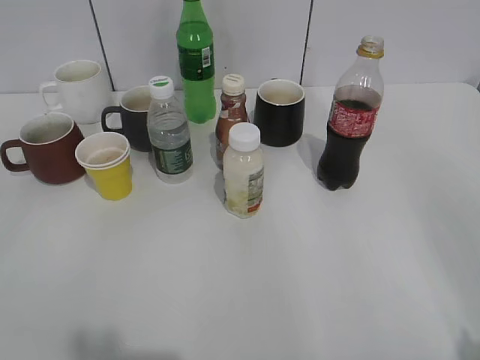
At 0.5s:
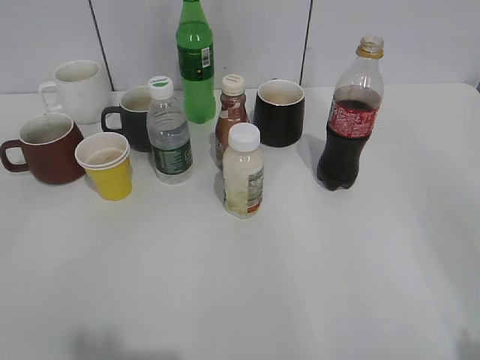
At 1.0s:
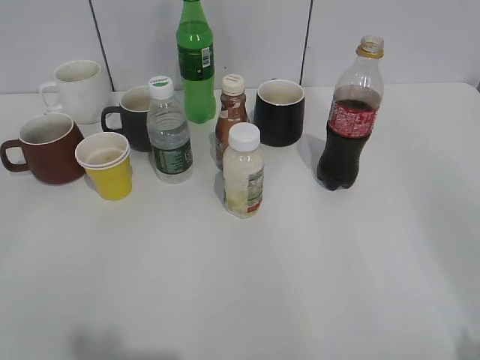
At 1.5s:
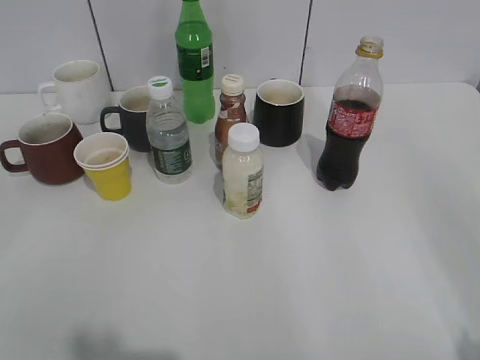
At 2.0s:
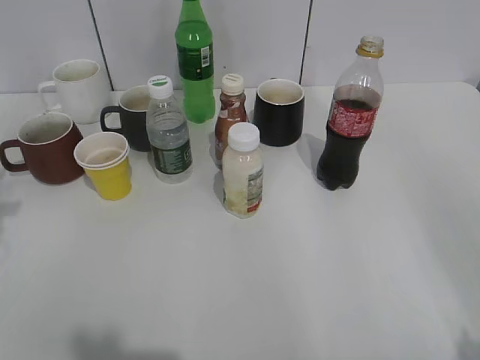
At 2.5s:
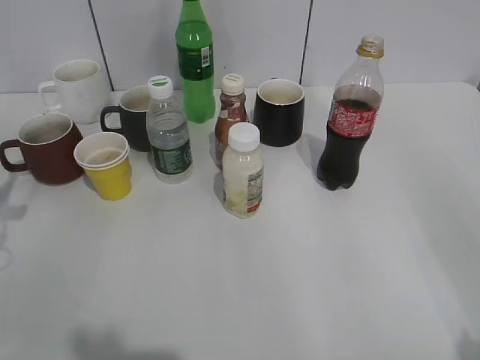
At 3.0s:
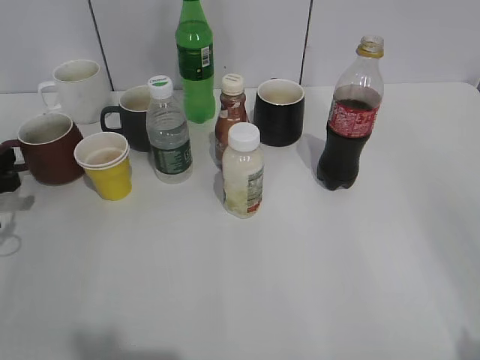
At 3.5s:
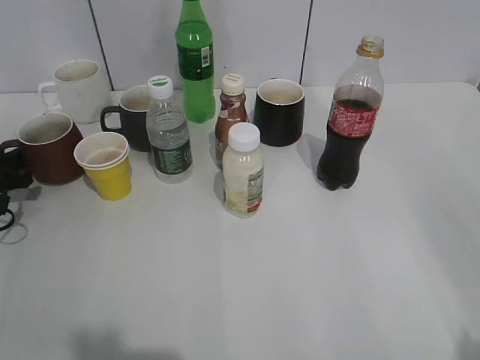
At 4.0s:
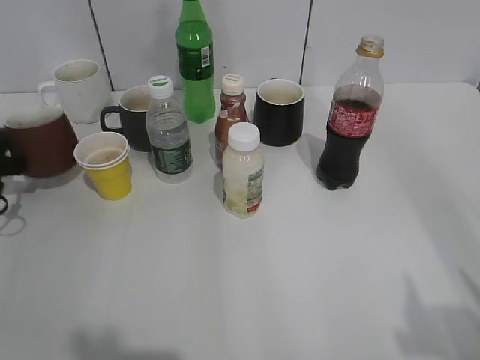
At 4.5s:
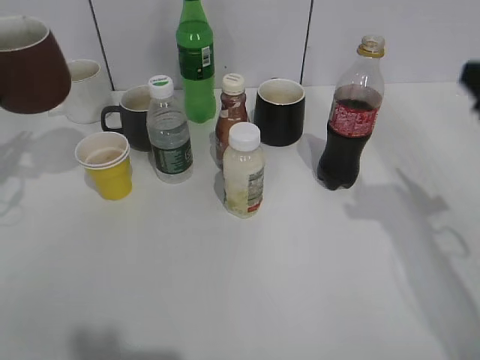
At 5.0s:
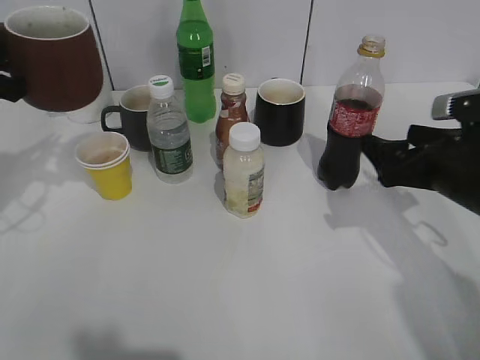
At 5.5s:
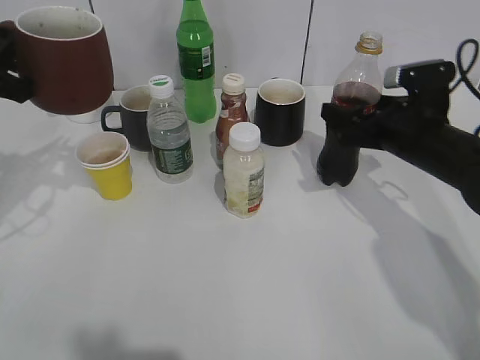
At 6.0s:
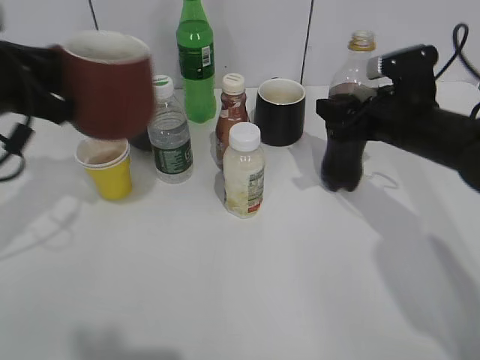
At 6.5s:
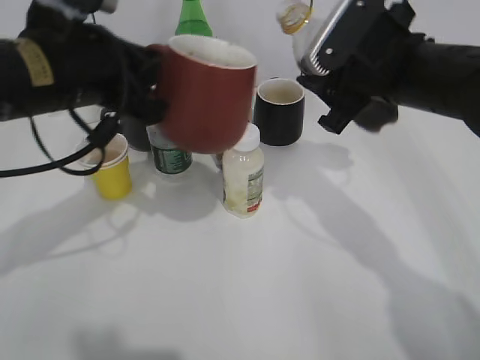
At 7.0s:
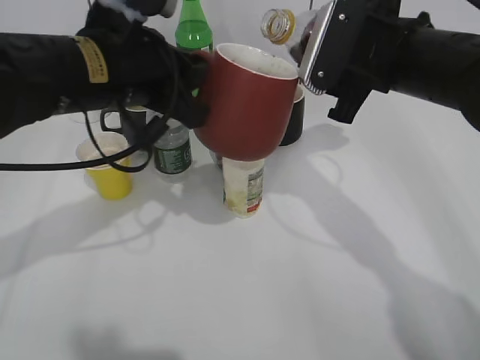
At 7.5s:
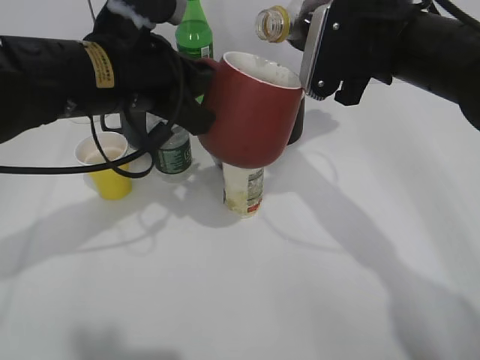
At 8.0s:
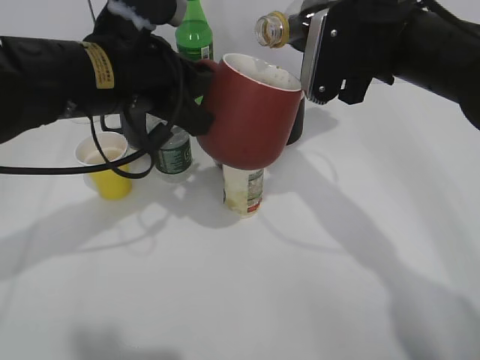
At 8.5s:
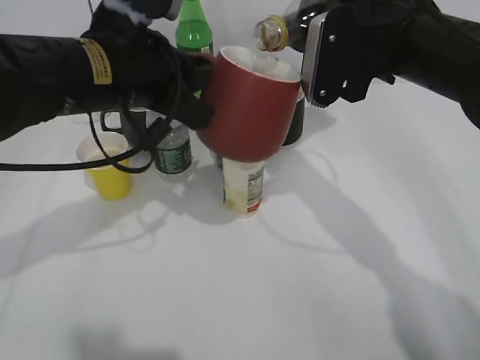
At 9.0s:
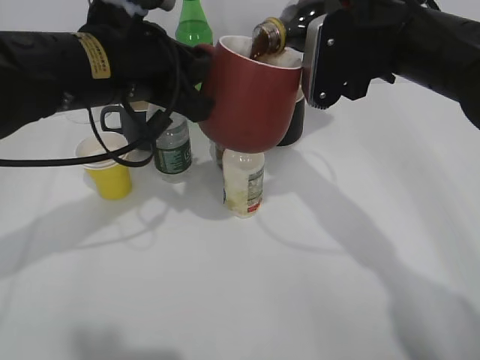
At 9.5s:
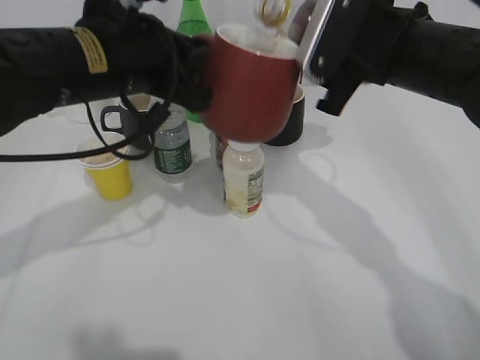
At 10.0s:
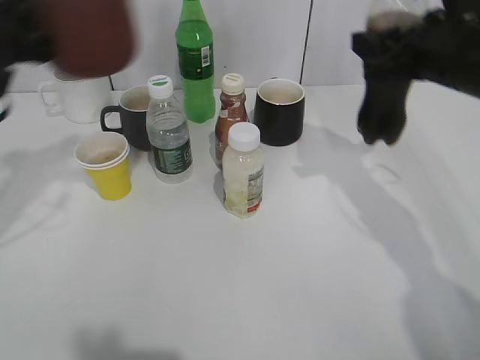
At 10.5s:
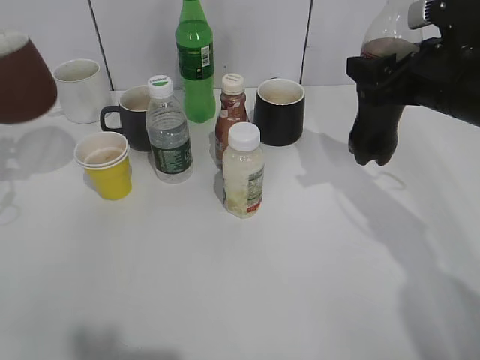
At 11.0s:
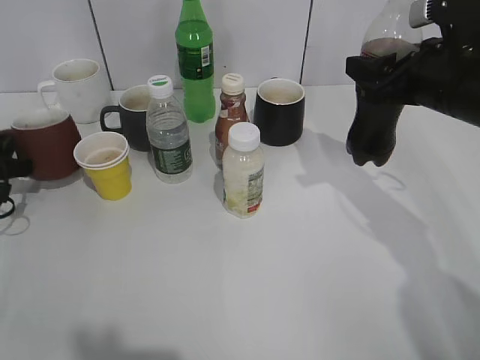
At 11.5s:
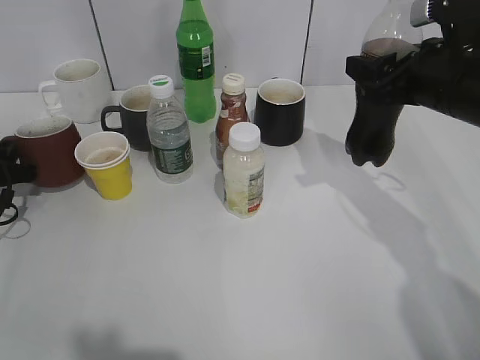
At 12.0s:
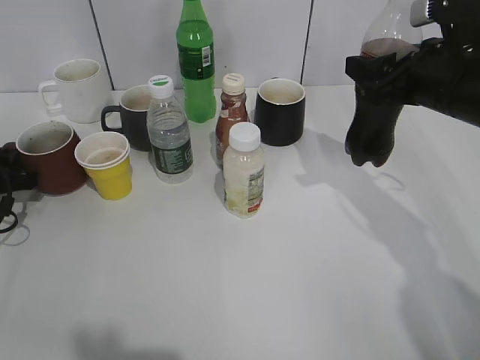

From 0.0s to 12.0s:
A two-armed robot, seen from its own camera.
Step, from 1.5s to 3.5s: Grasp the red cup with left gripper.
Step, from 4.0s to 5.5s: Grasp the bottle with cola with right gripper.
Step, from 6.0s to 9.5s: Pour the cola from bottle to cup with right gripper.
From 2.0s to 4.0s: The left gripper heads downward and forward, covering some 25 cm, and closes.
From 4.0s to 6.0s: The right gripper goes roughly 40 cm forward and downward, and closes. The left gripper is displaced upward and to the right by roughly 20 cm.
From 6.0s to 8.0s: The left gripper travels to the right by about 15 cm. Meanwhile the right gripper moves upward and to the left, approximately 15 cm.
From 8.0s to 10.0s: The right gripper heads to the right, covering about 5 cm, while the left gripper goes about 15 cm to the left.
From 10.0s to 12.0s: The left gripper travels downward and to the left by roughly 25 cm.

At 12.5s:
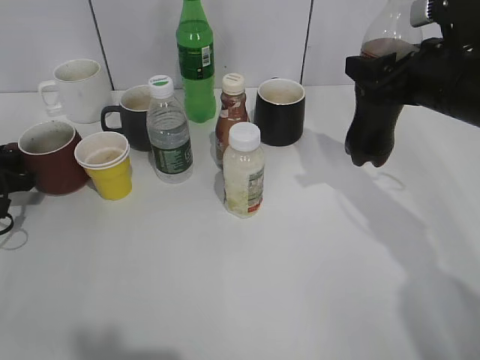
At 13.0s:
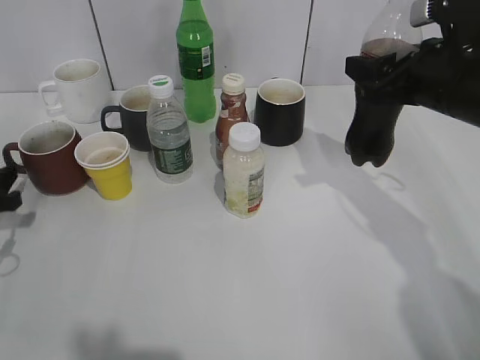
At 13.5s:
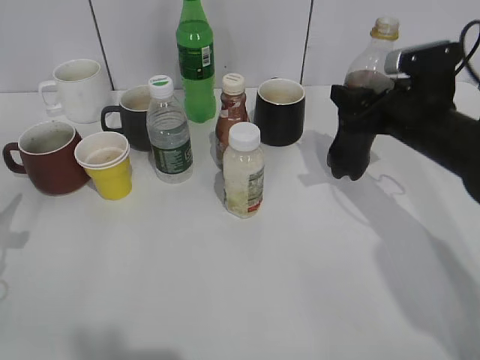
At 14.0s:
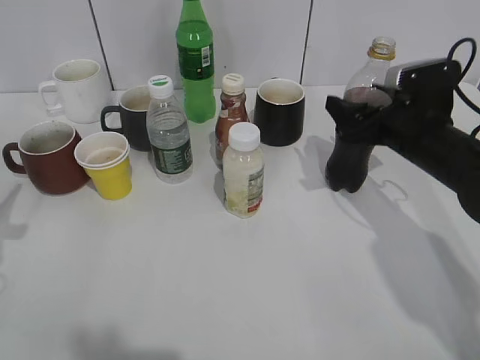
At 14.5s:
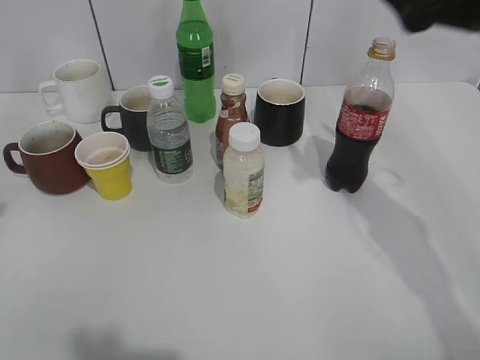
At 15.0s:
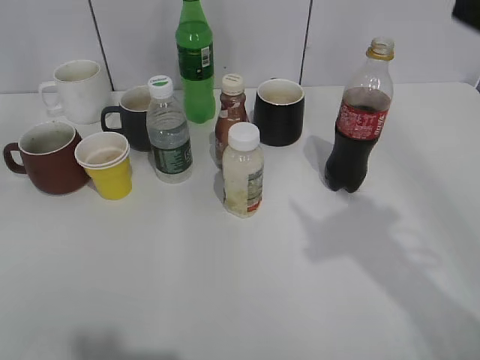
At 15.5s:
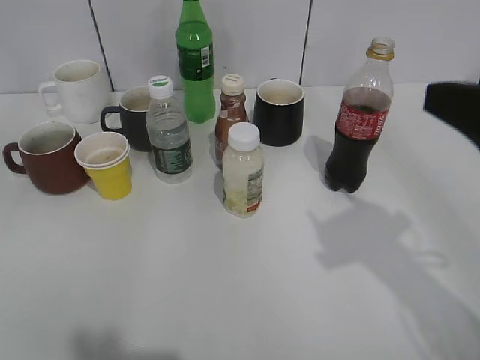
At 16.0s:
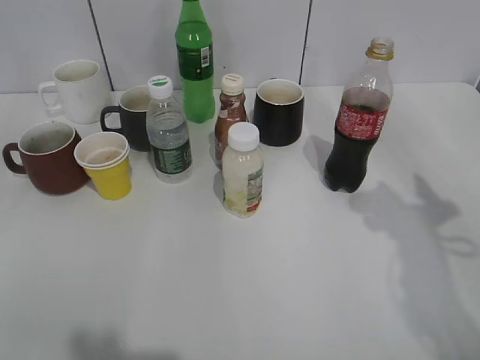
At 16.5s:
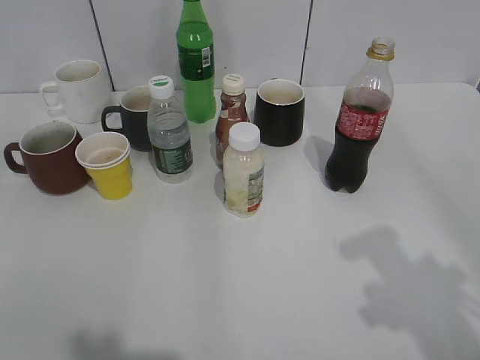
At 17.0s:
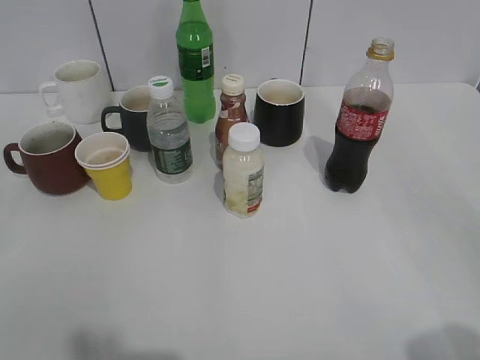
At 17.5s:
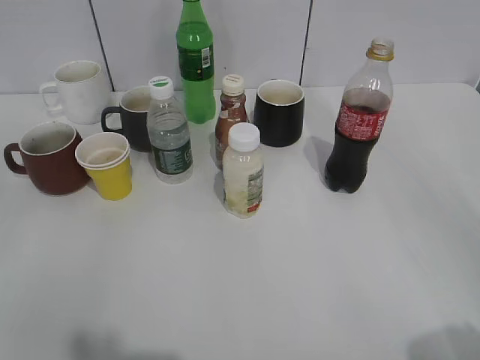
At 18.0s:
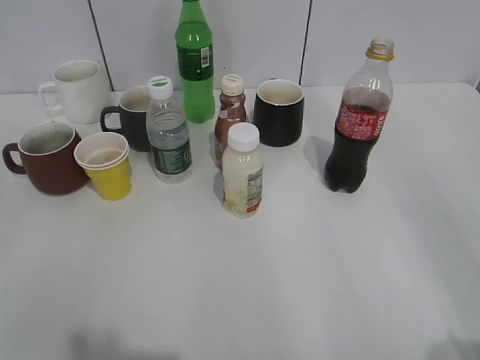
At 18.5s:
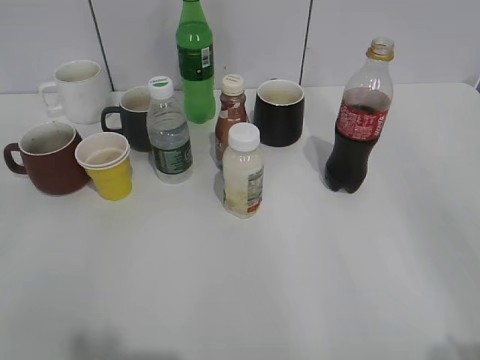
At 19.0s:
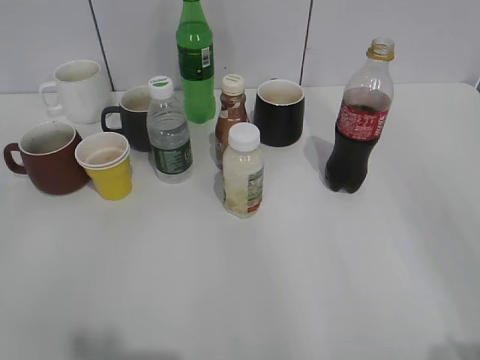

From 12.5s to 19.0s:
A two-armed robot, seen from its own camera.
From 12.5s to 14.5s: The left gripper goes some 25 cm upward and backward. The right gripper is displaced upward by approximately 10 cm, and opens its fingers.
From 14.5s to 17.0s: The right gripper goes forward and backward, roughly 30 cm each way, reversing 2 times, and closes up.

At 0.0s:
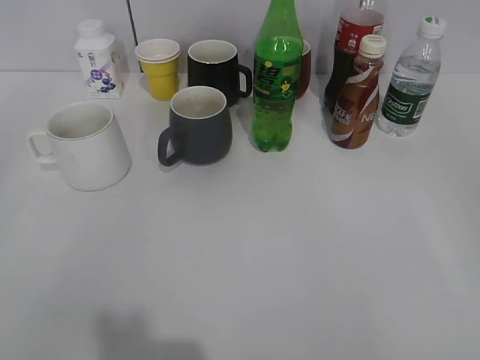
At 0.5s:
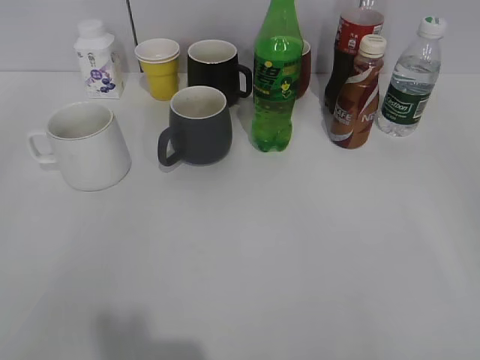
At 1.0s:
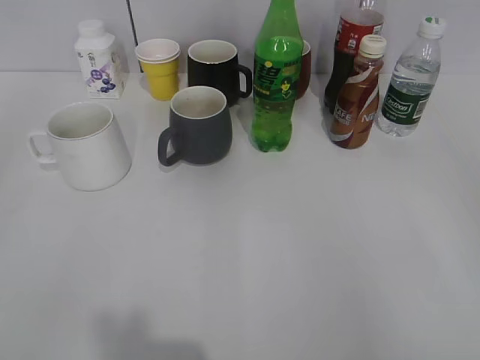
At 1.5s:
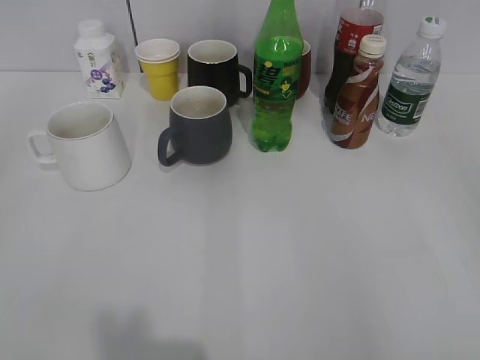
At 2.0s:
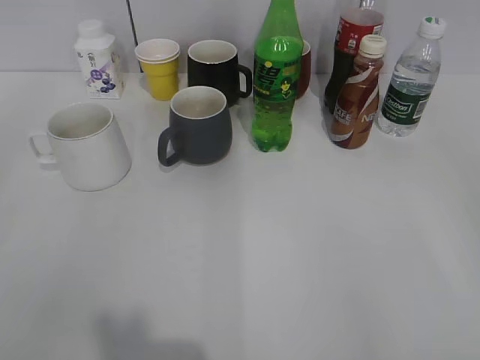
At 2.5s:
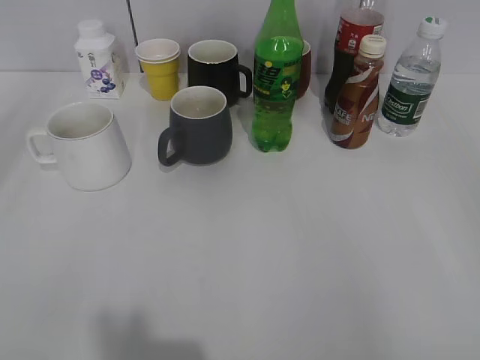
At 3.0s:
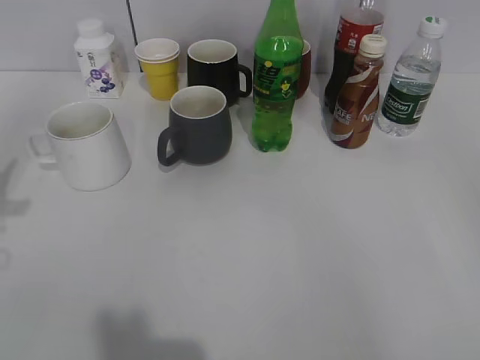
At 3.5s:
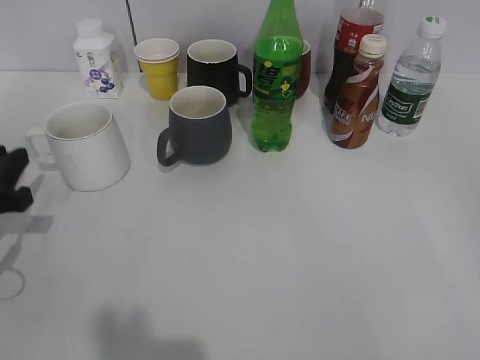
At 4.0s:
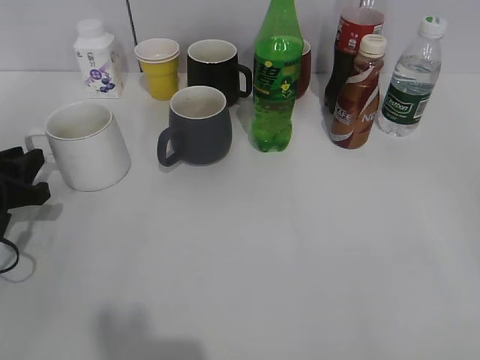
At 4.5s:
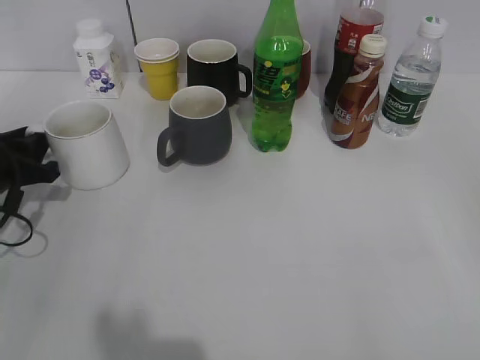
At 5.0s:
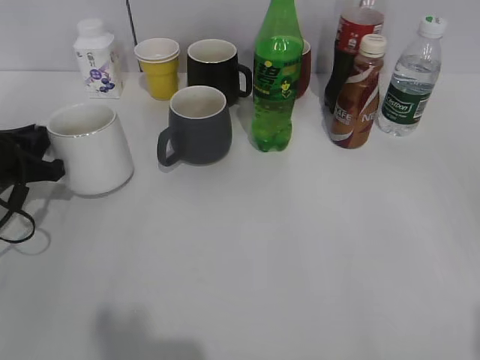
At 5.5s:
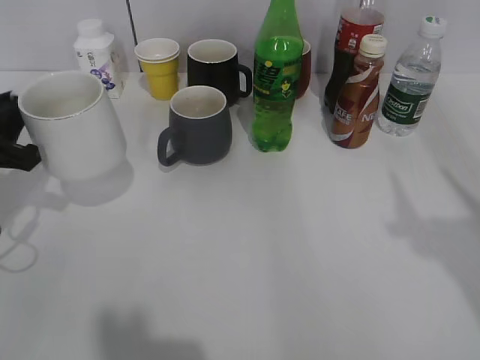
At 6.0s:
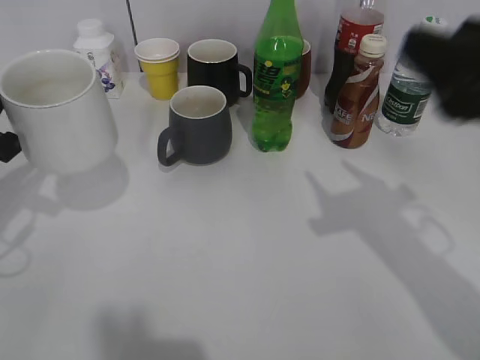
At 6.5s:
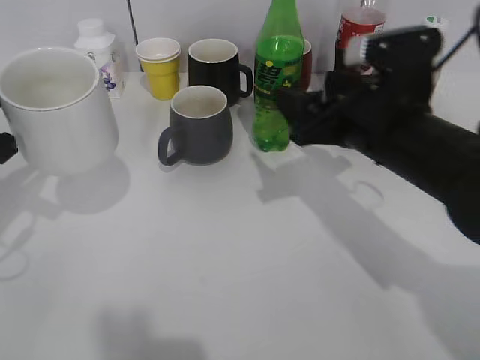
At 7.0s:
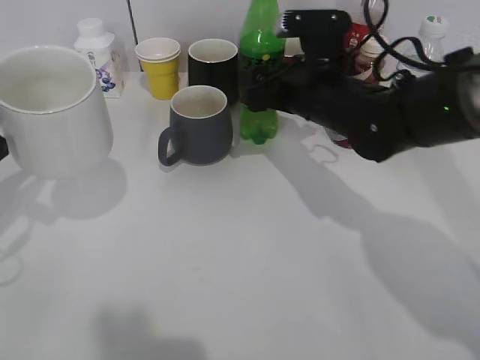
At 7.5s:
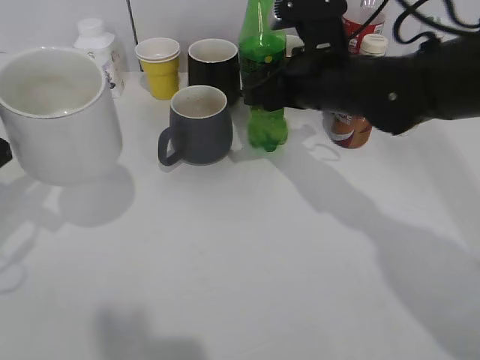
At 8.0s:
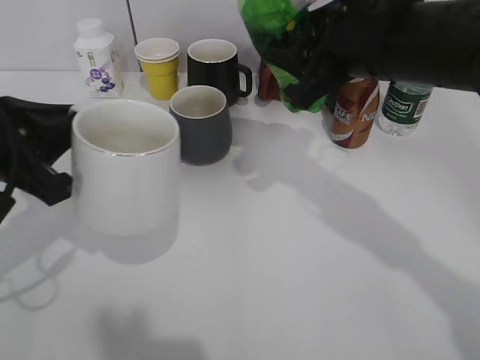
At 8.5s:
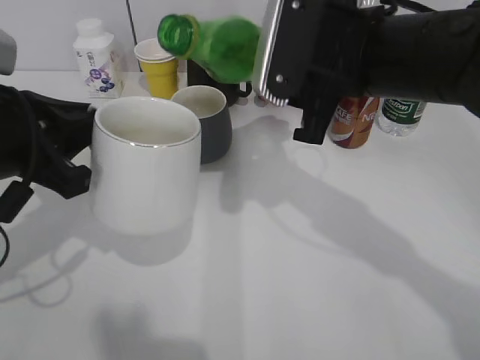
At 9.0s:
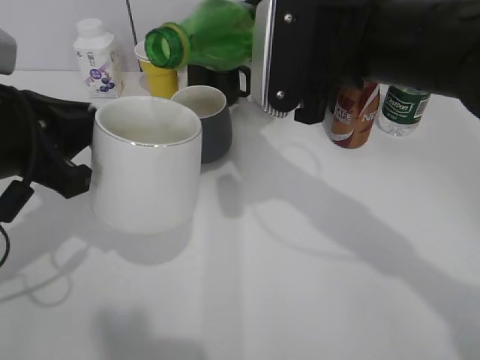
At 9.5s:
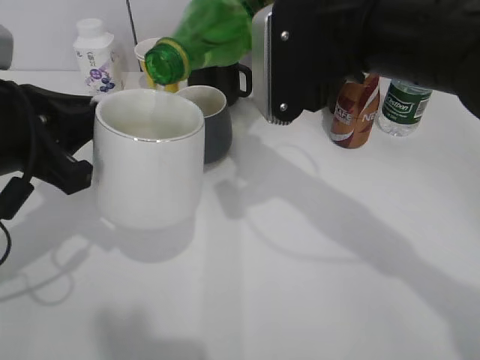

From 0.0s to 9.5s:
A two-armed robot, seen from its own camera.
Step, from 2.0s to 4.5s: Grasp the white cup with left gripper.
Step, from 5.0s to 5.5s: Lift the white cup with left gripper.
Step, from 6.0s to 7.0s: Grasp the bottle with sprite with right gripper.
From 2.0s to 4.0s: The left gripper moves forward and downward, approximately 30 cm.
From 4.0s to 5.5s: The left gripper goes about 5 cm upward, and closes up. The right gripper heads upward and forward, covering approximately 15 cm.
From 5.5s to 7.5s: The right gripper travels forward, to the left and downward by some 40 cm, and closes up. The left gripper goes roughly 5 cm upward.
From 7.5s to 9.5s: The left gripper is displaced to the right by about 5 cm; the right gripper shifts some 15 cm upward and backward.
